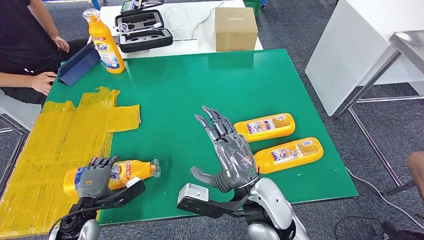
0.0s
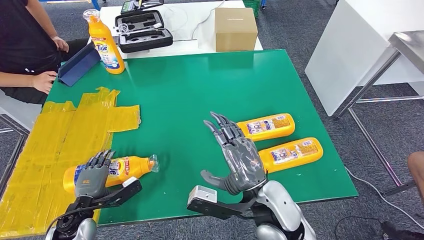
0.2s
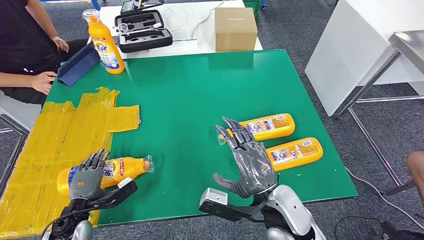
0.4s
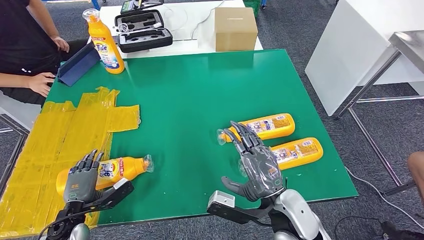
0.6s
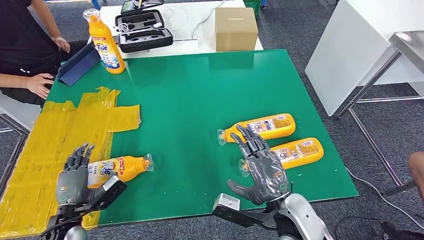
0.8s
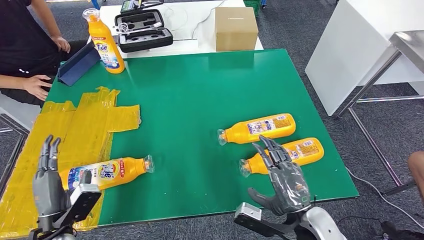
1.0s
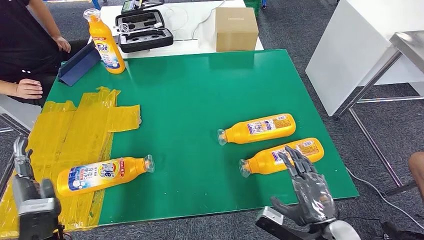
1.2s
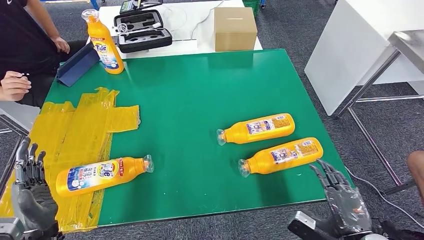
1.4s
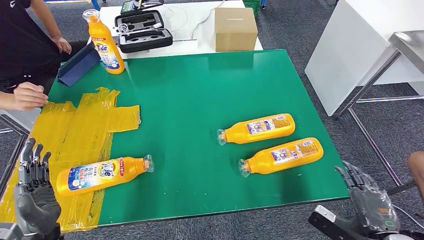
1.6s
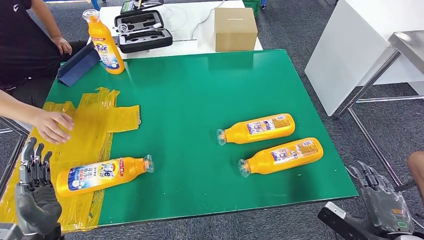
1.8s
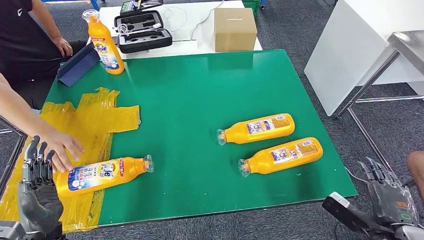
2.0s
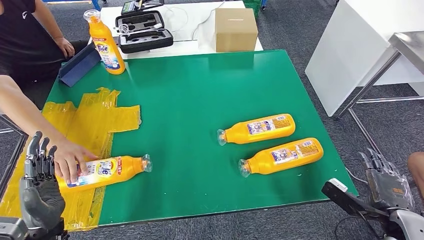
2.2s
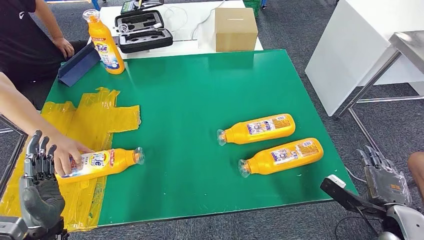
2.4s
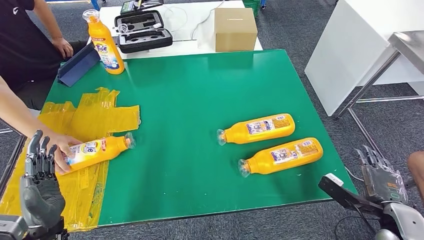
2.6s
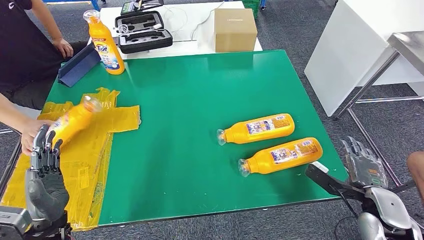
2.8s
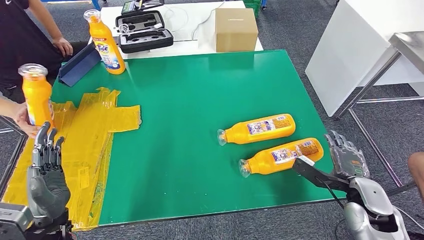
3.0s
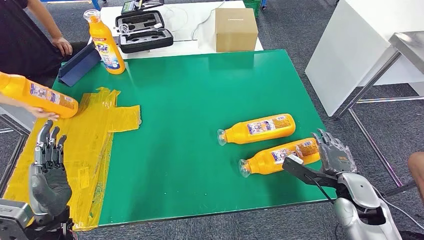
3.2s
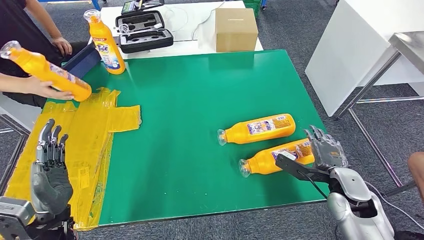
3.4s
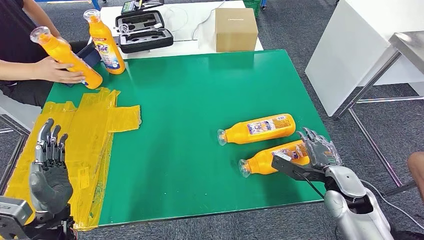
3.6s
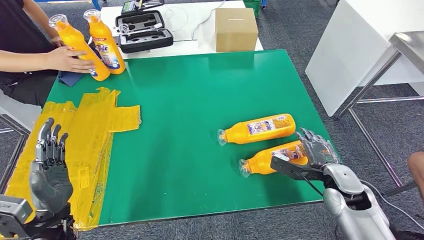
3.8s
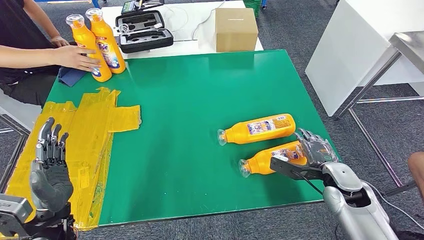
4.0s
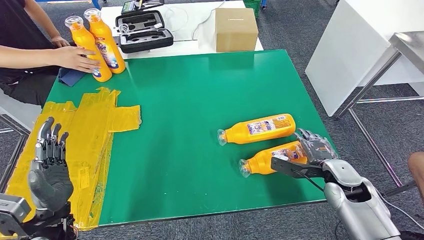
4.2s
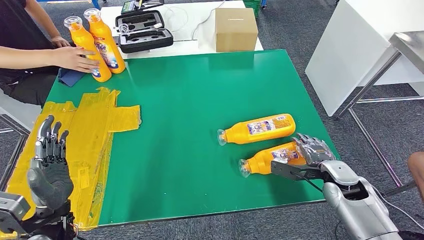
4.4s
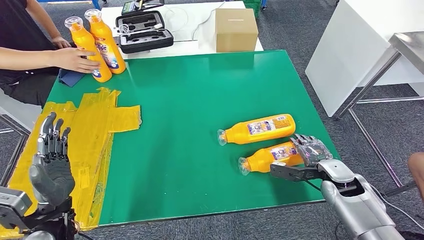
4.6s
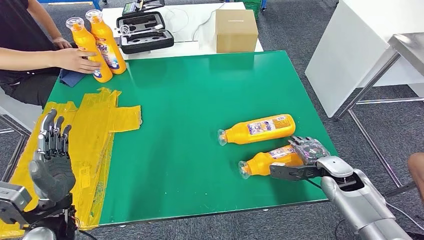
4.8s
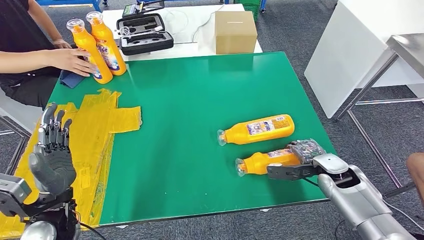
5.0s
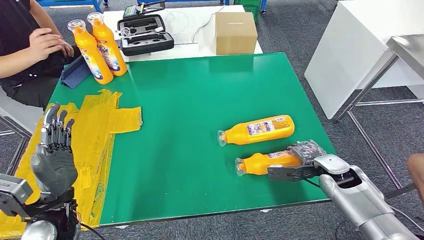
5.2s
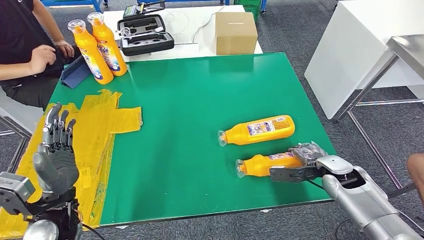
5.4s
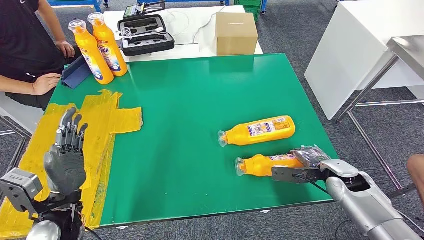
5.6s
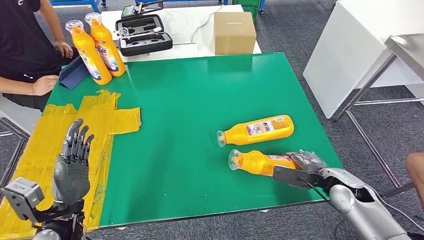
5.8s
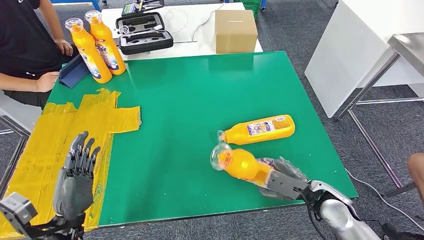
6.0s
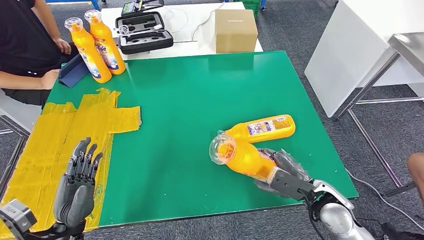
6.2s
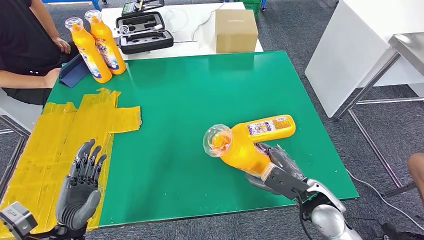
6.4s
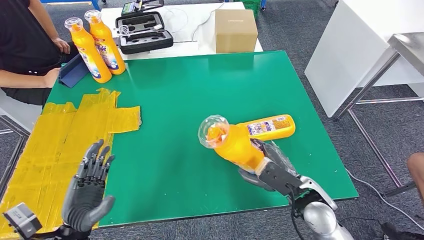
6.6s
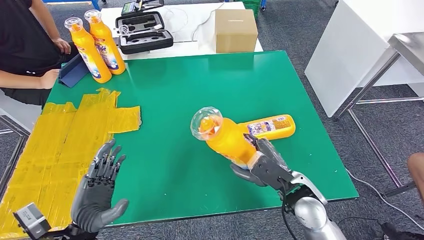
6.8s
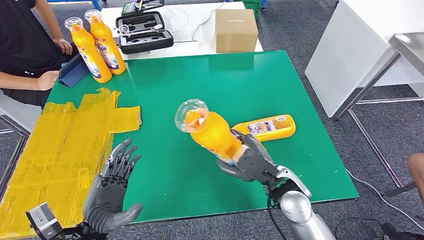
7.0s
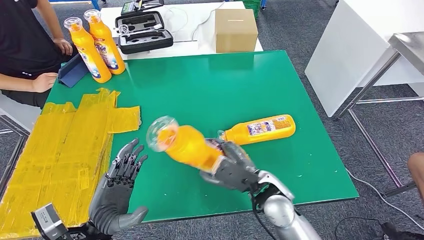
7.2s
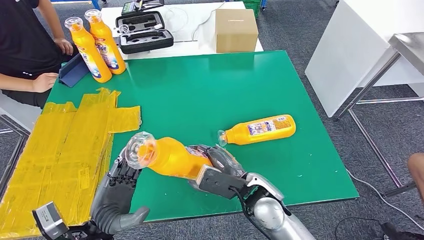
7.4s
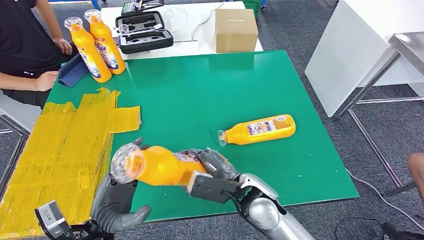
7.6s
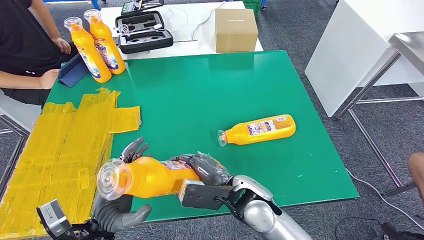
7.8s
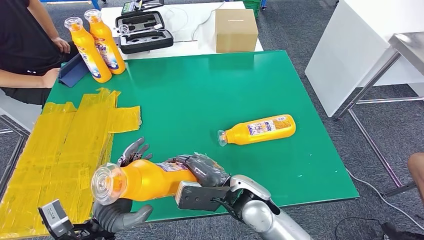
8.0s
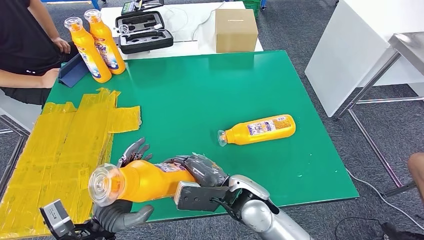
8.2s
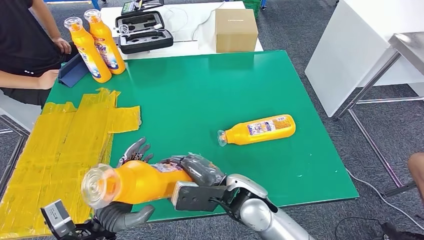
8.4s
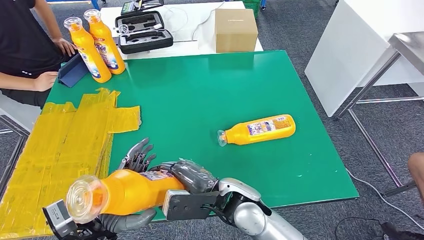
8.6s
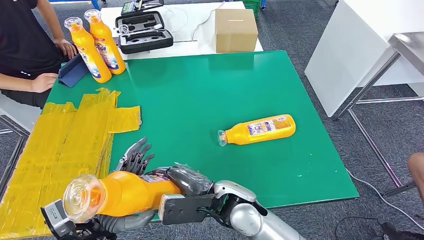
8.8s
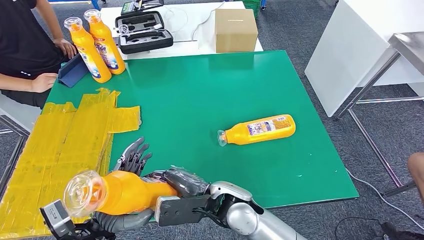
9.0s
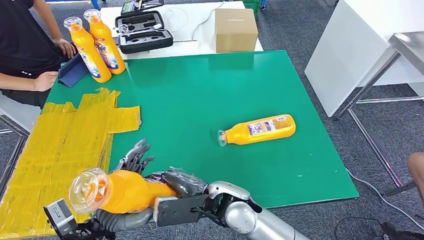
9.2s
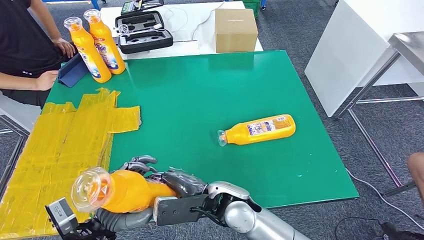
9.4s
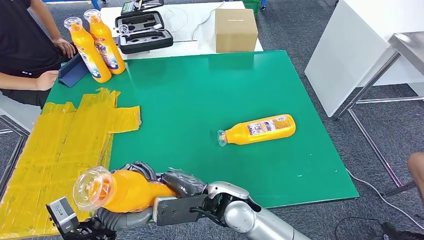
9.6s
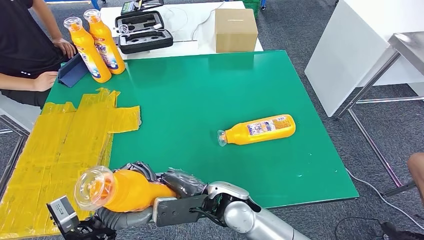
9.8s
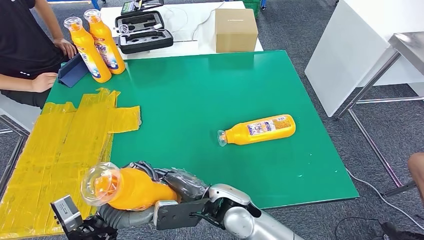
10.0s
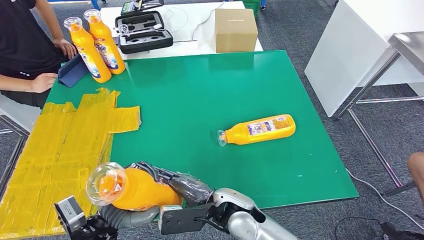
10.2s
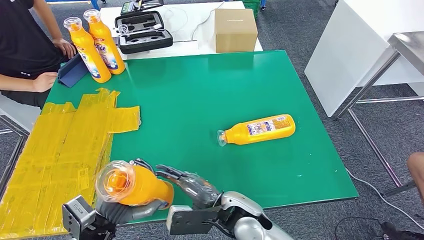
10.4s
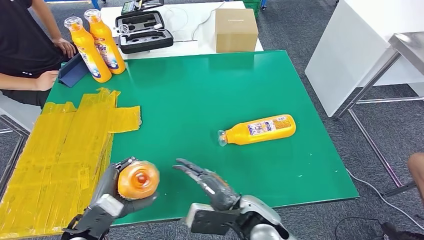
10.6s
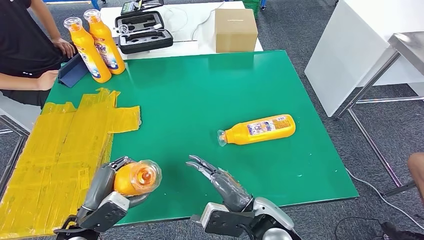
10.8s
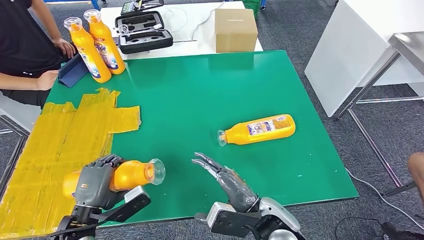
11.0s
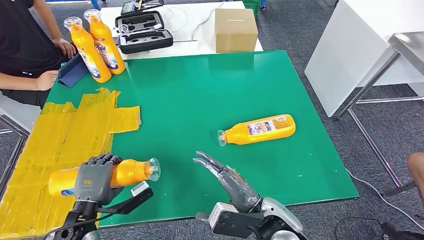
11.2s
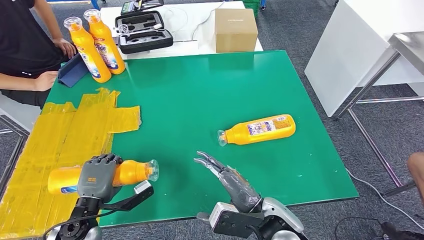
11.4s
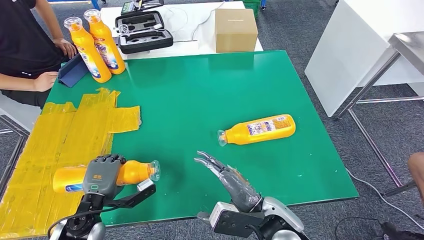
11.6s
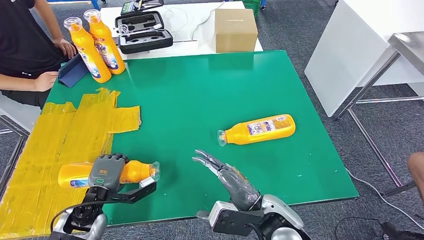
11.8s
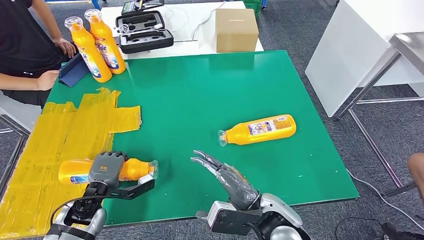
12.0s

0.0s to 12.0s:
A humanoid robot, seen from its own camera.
Step, 0.0s to 2.6s: Flip the fast-moving consumer goods bottle to the front side.
Step, 3.0s to 7.2s: Pick up the fast-moving consumer goods bottle from the table.
1.6s to 3.0s: The right hand goes roughly 15 cm forward.
3.0s to 4.4s: The right hand shifts approximately 5 cm forward.
7.6s to 9.0s: The right hand moves to the left, approximately 5 cm.
9.0s to 10.4s: The hands stay close to where they were, moving slightly.
10.4s to 12.0s: The left hand heads forward, downward and to the left, covering some 15 cm; the right hand goes approximately 5 cm to the right.

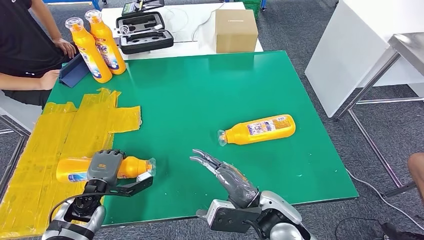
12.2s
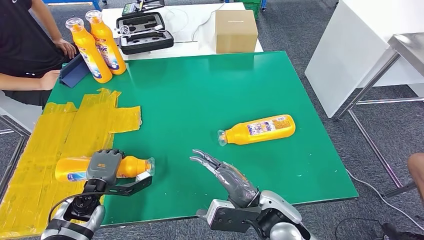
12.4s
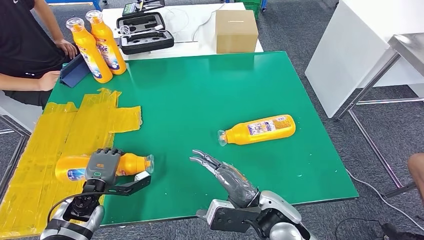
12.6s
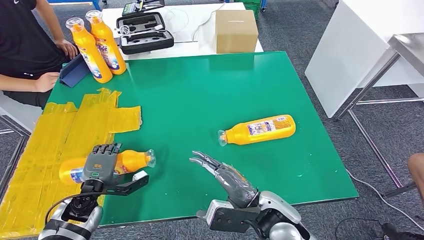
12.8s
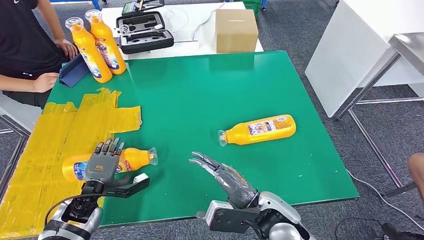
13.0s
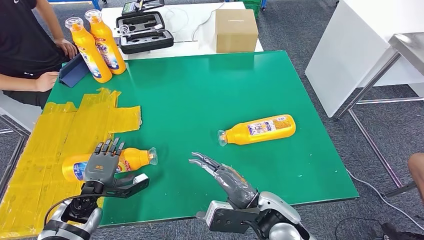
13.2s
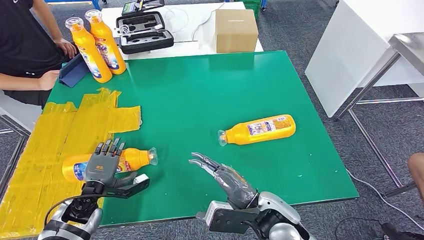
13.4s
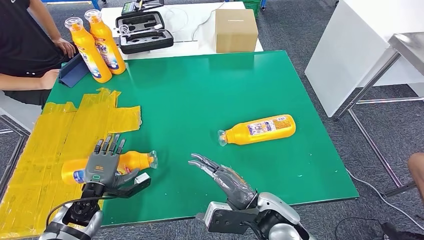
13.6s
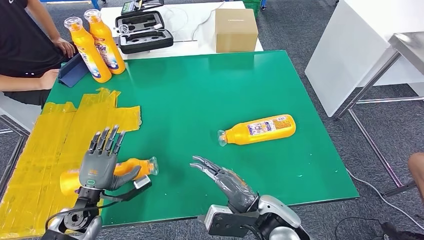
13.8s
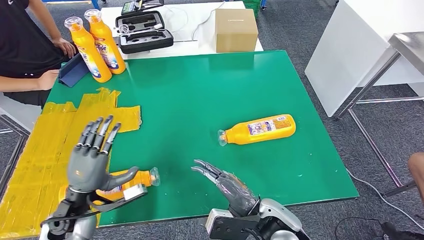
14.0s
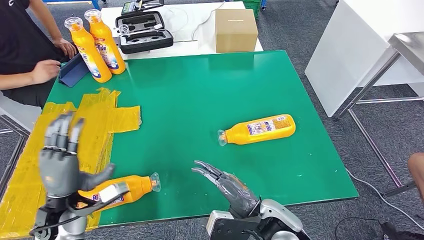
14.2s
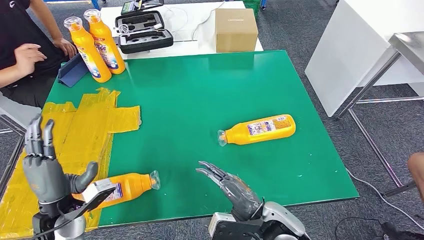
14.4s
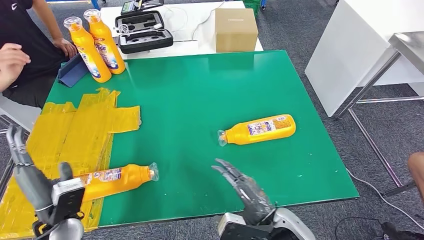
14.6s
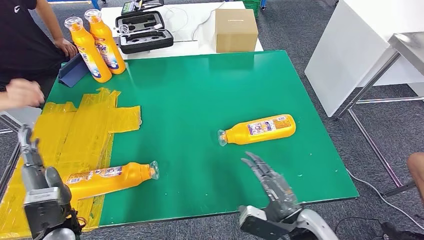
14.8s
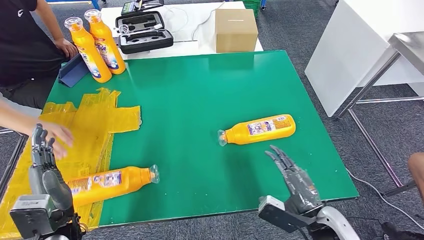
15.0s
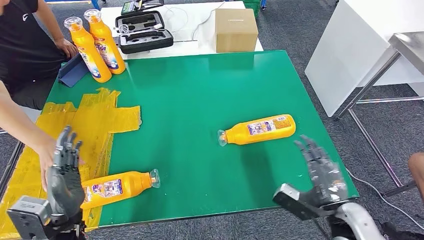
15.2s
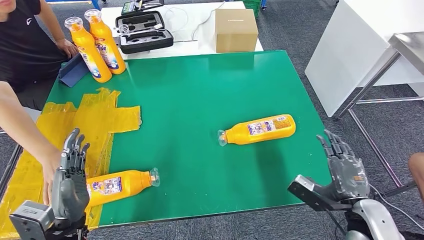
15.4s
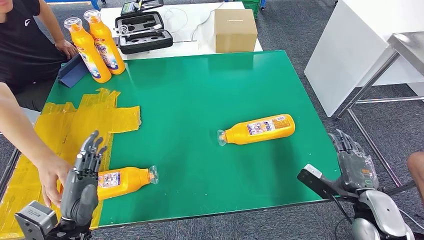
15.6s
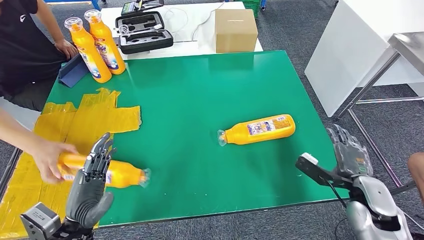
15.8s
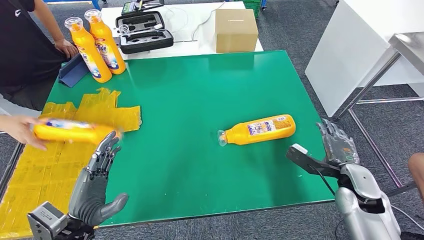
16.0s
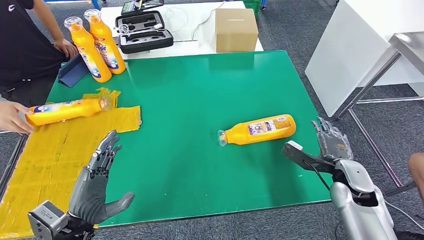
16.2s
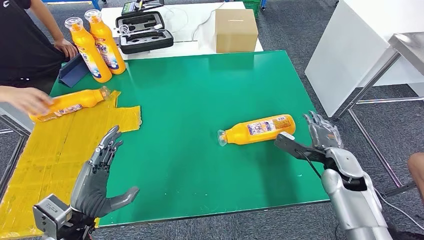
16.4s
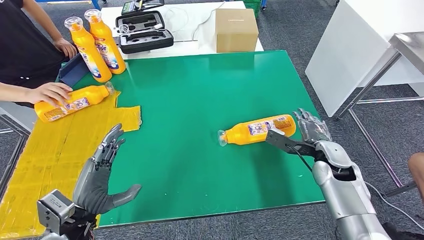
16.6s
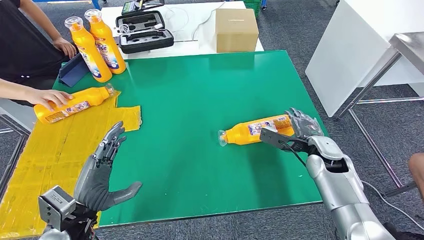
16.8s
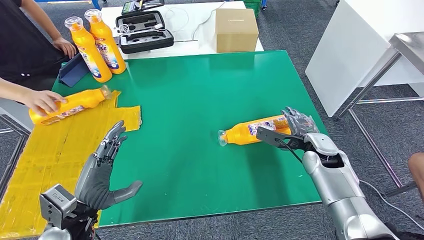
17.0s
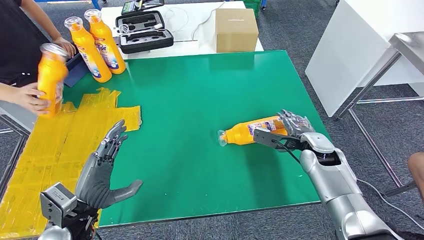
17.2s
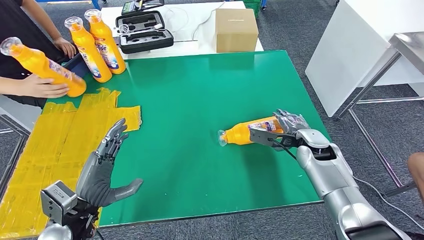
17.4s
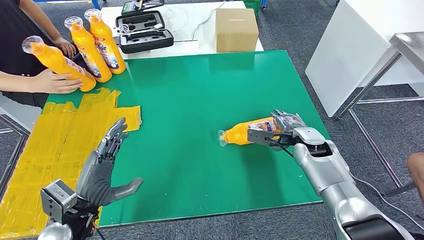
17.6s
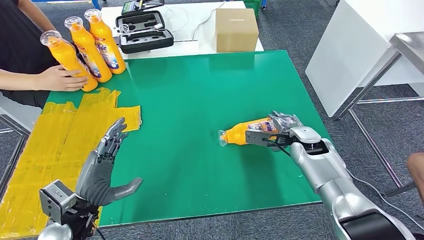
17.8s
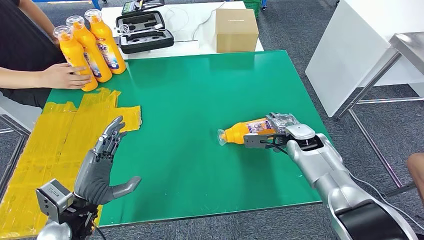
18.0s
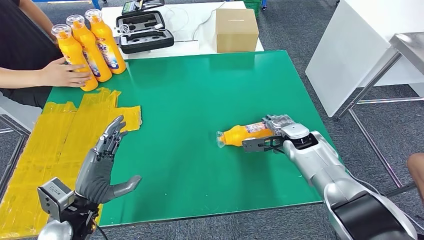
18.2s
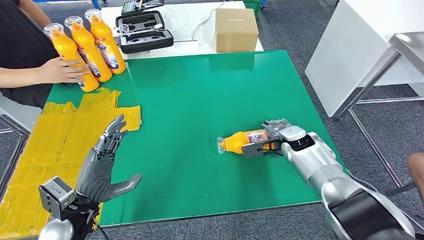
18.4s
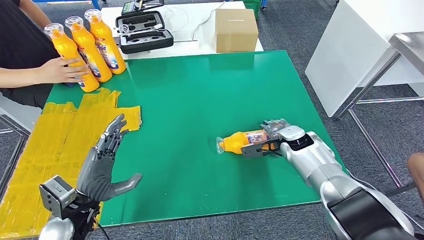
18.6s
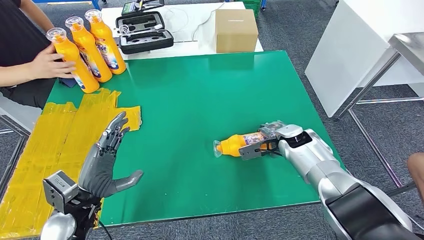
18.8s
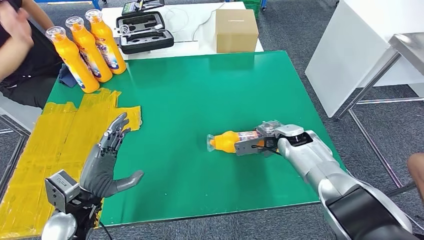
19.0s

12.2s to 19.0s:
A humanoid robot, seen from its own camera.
Step, 12.2s to 14.4s: Flip the fast-moving consumer goods bottle to the front side.
12.2s to 13.6s: The hands stay close to where they were, moving slightly.
13.6s to 15.0s: The left hand heads upward and backward, covering roughly 10 cm. The right hand goes approximately 10 cm to the right.
16.2s to 17.6s: The right hand shifts some 15 cm forward and to the left.
